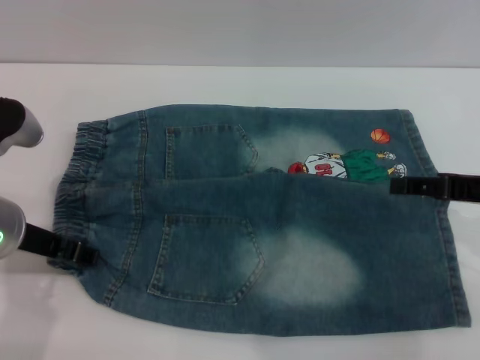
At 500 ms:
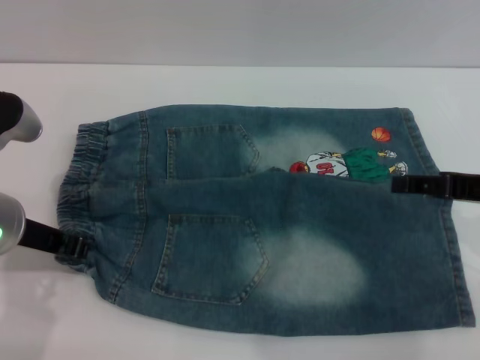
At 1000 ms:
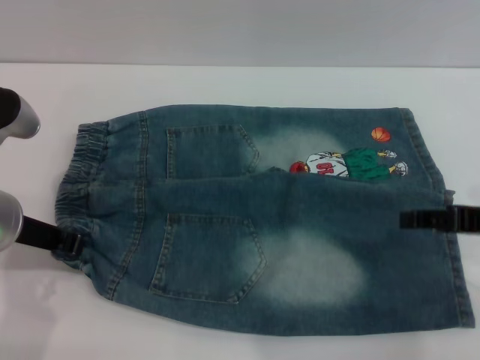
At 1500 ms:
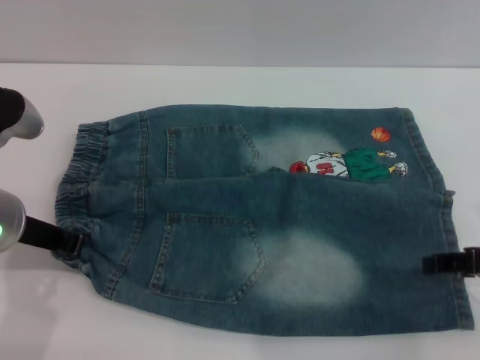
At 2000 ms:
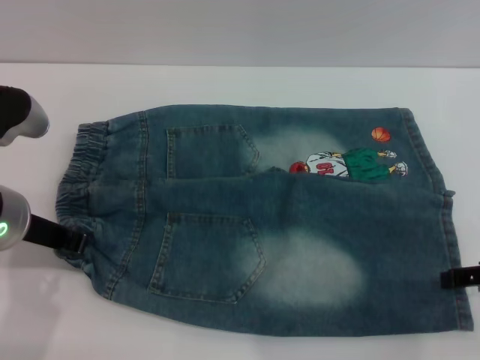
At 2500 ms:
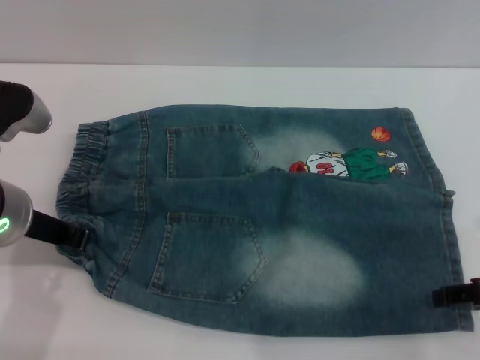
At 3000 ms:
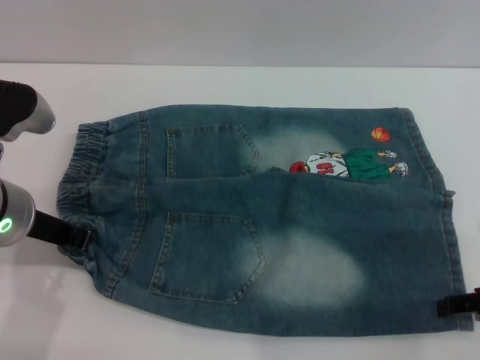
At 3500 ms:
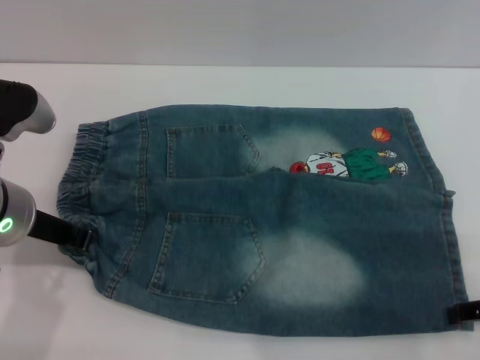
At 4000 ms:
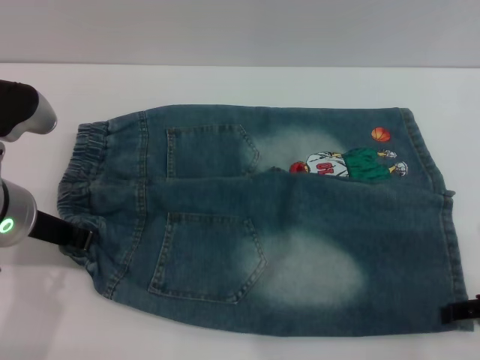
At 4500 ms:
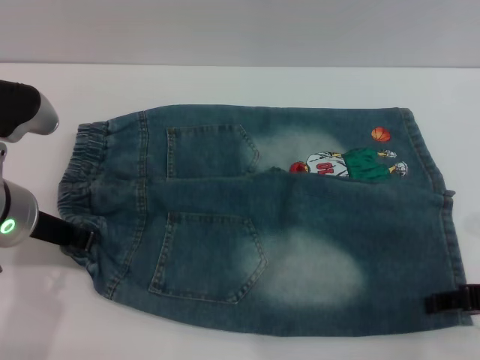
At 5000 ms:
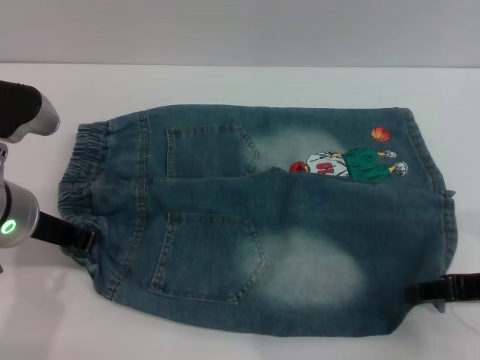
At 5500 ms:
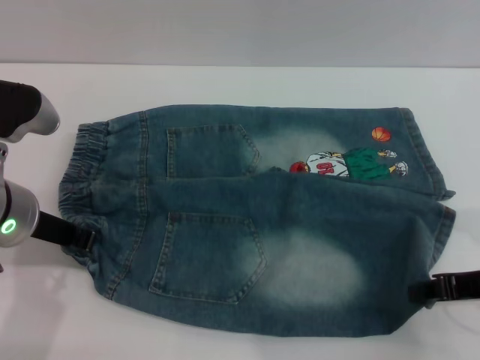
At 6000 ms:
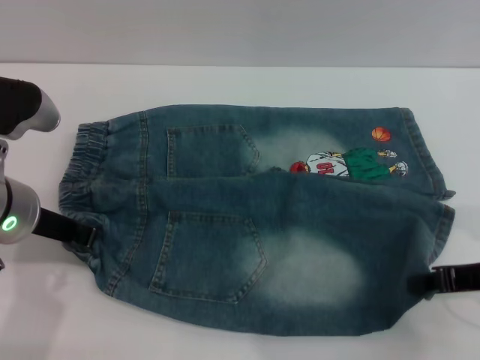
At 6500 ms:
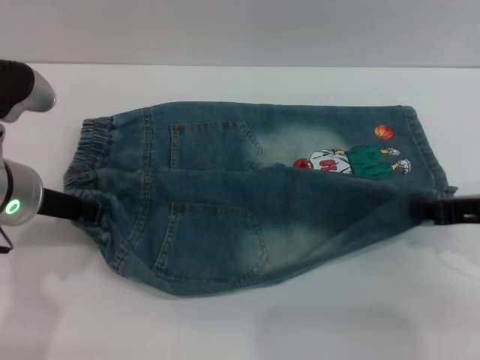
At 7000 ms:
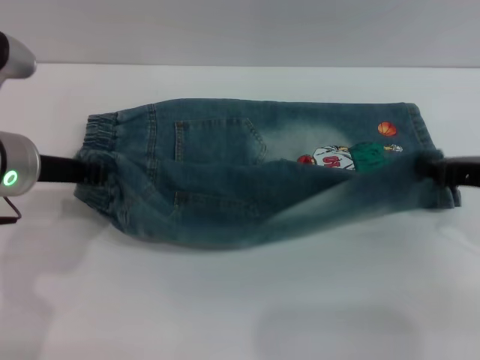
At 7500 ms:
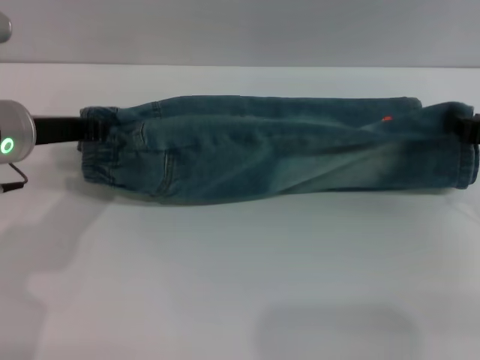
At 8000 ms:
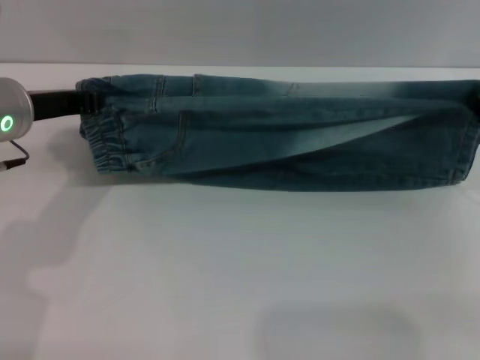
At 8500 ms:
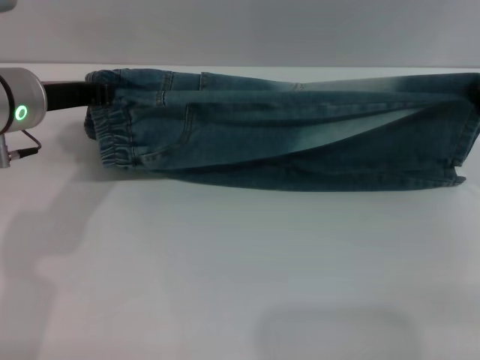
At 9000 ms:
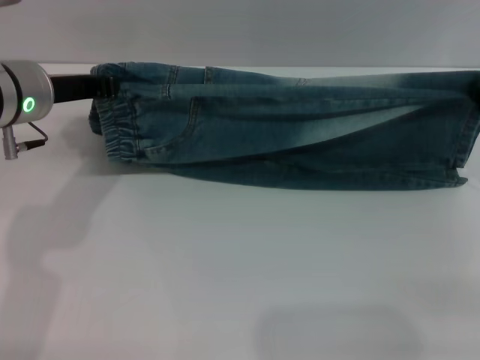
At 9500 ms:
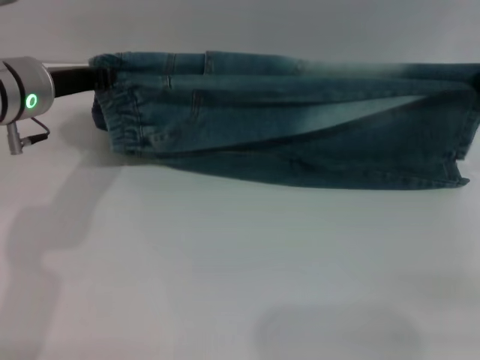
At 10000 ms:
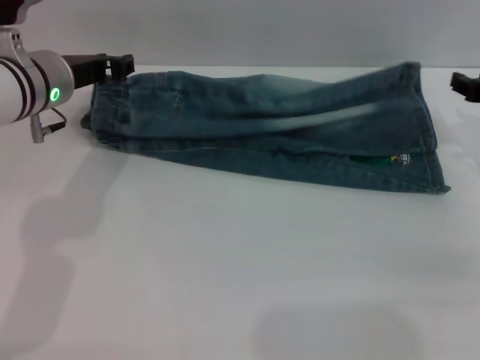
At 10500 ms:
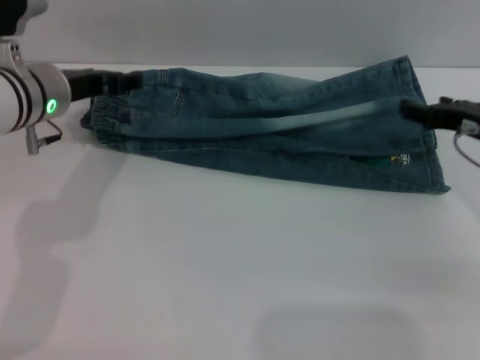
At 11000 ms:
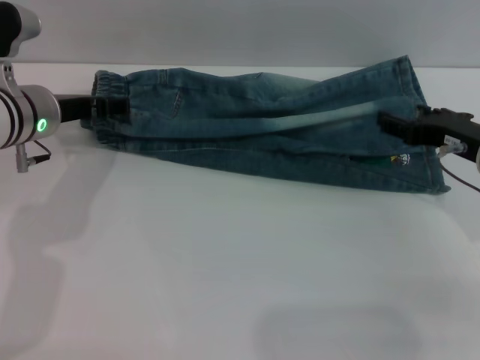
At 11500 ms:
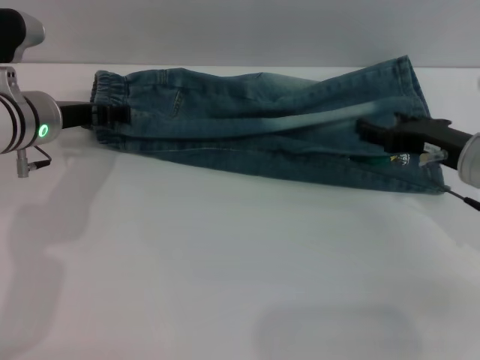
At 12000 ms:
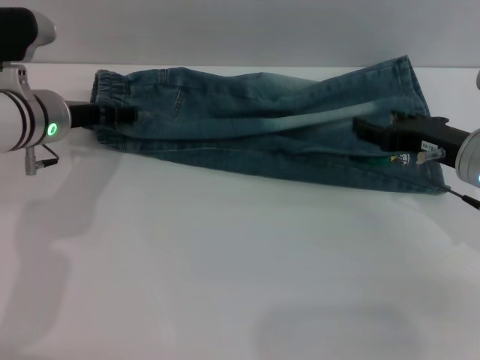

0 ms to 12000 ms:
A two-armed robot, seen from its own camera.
0 ms to 2000 ms: The left gripper closes up.
2000 ms to 4000 ms: The grippers move only a little.
4000 ms to 6000 ms: The right gripper closes.
6000 ms to 8000 ms: Both grippers move forward, some 5 cm.
8000 ms to 10000 ms: Both grippers travel together forward, about 5 cm.
10000 ms to 12000 ms: The left gripper opens. The right gripper goes roughly 5 cm to the left, and opens.

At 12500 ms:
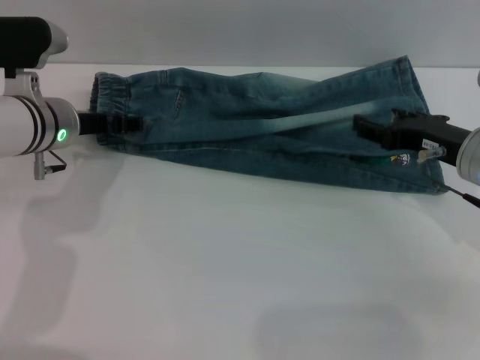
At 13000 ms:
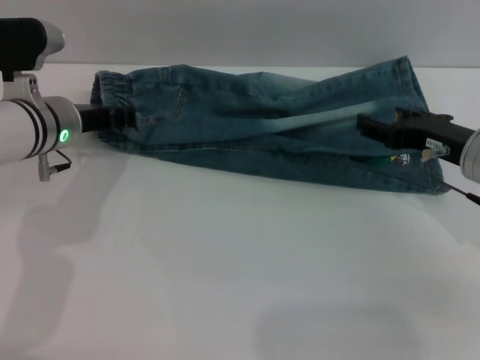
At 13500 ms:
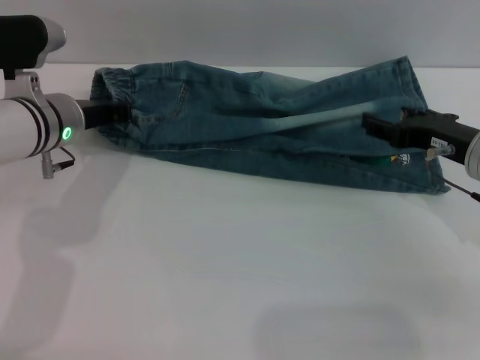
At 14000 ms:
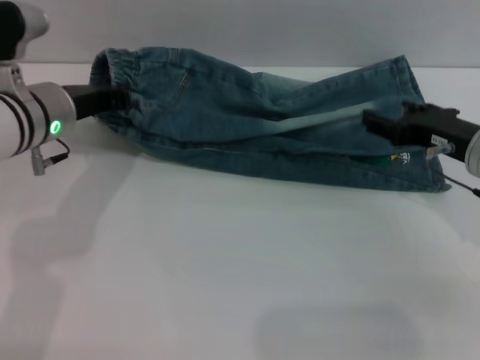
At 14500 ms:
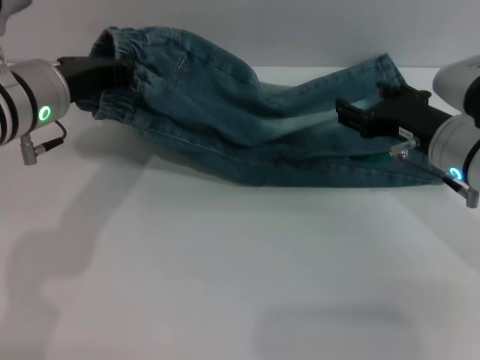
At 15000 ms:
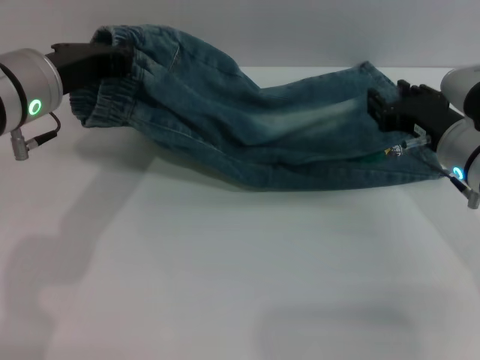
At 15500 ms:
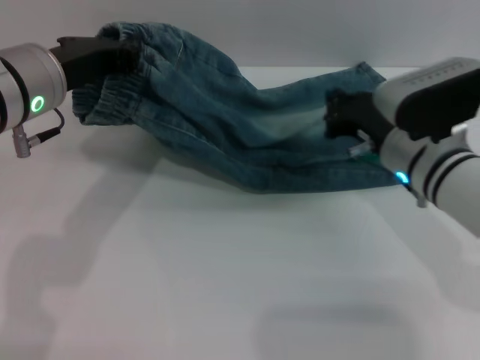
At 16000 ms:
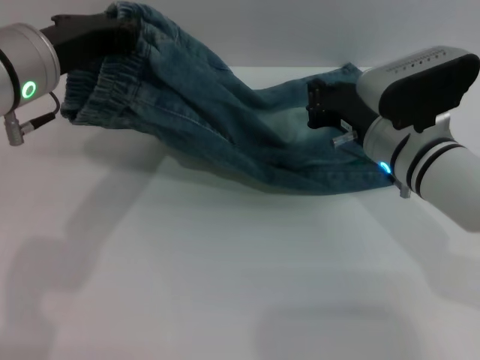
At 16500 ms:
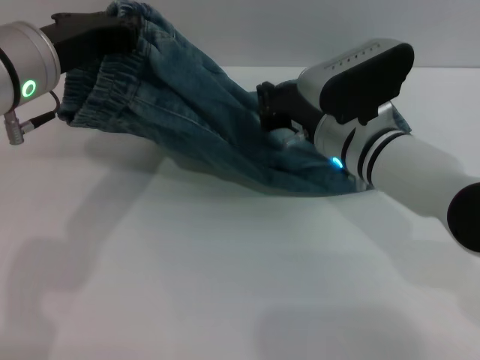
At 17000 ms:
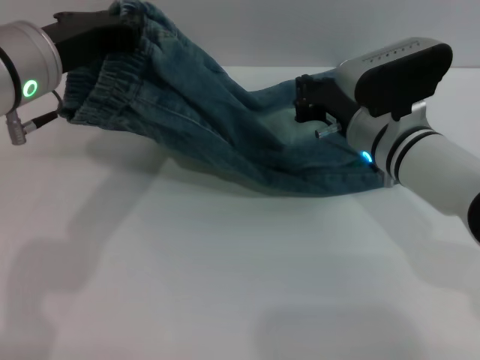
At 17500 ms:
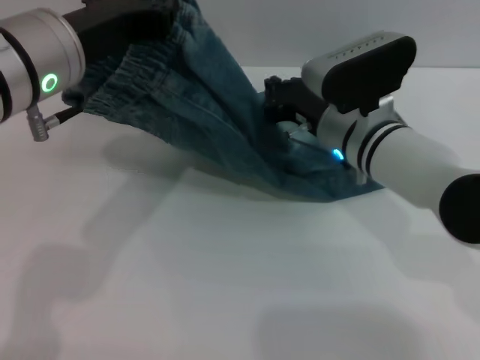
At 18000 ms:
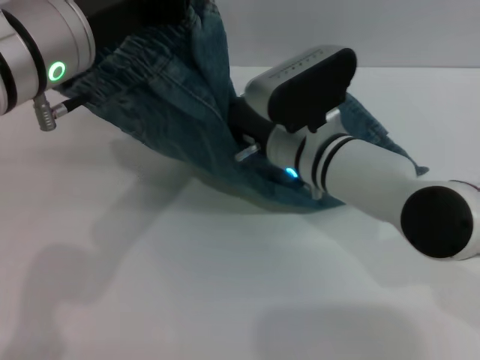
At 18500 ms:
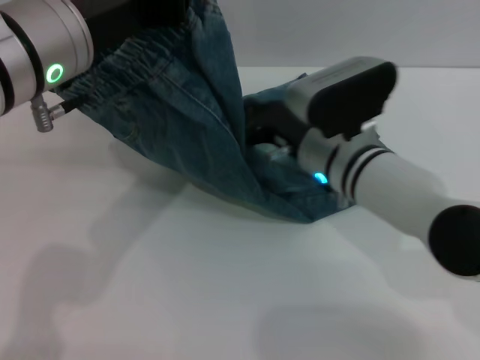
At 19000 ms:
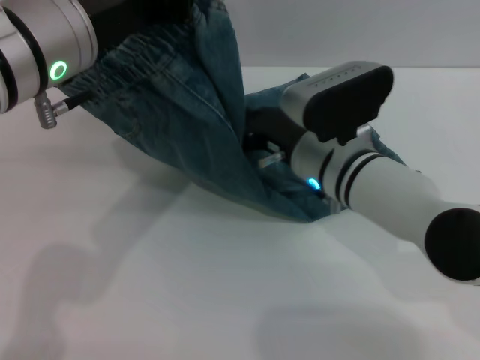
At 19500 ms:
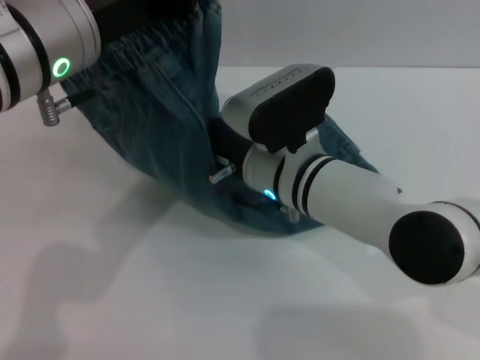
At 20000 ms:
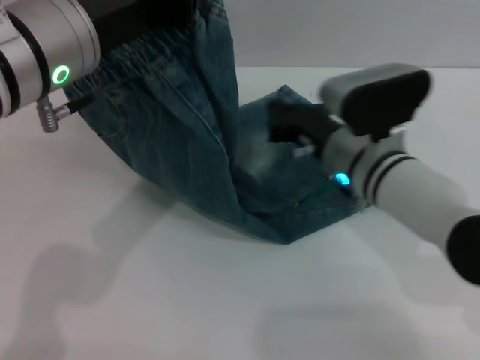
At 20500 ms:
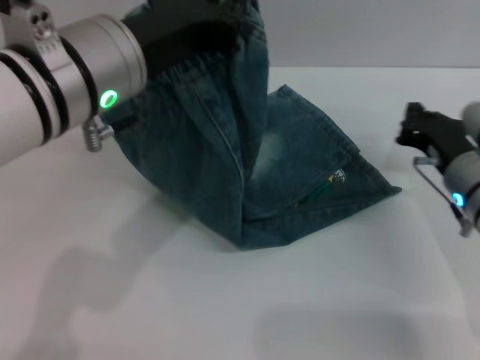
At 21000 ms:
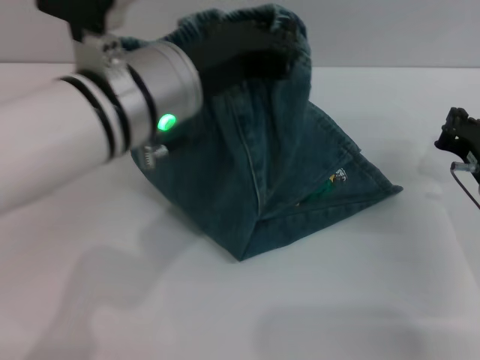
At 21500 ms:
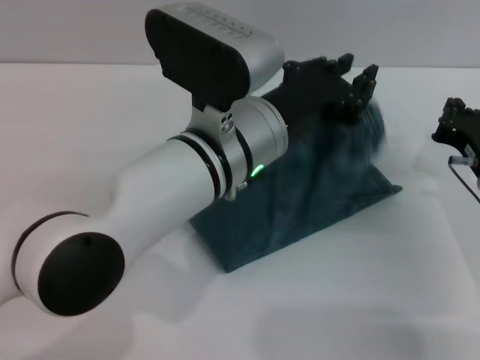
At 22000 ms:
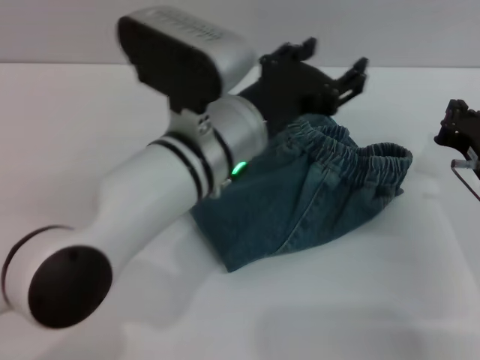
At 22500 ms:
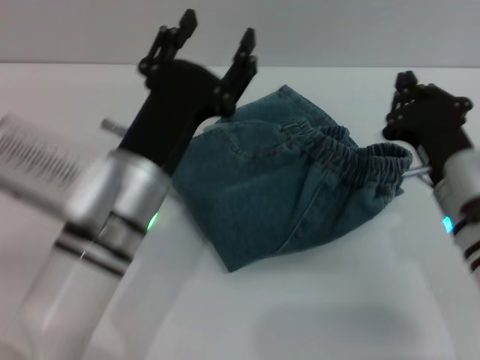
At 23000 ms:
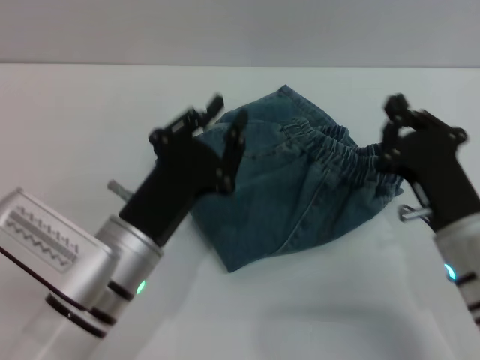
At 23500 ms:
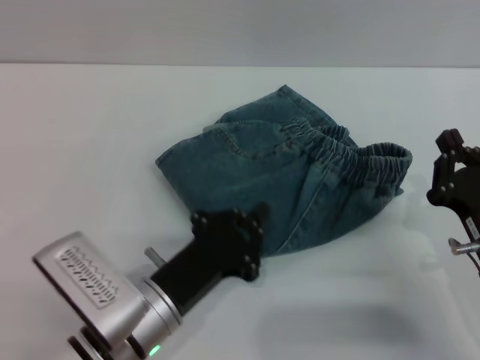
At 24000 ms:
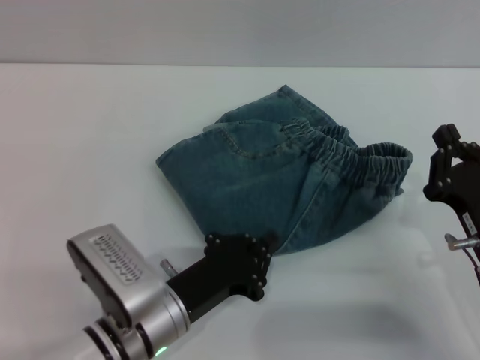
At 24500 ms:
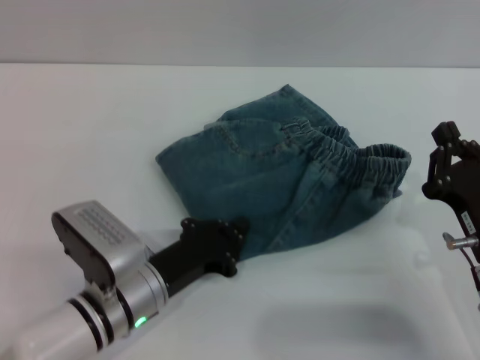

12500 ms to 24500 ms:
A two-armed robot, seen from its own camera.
Step, 13000 ms to 22500 ms: Fold the pants from left to right with the left gripper.
12500 ms to 14500 ms: The left gripper shifts about 10 cm upward and backward, and closes its fingers.
14500 ms to 16500 ms: The right gripper is displaced to the left by approximately 10 cm, and closes, while the left gripper changes place by roughly 5 cm.
16500 ms to 18500 ms: The left gripper changes place by some 5 cm.
18500 ms to 20500 ms: The right gripper heads to the right, covering approximately 15 cm.
20500 ms to 22500 ms: The left gripper shifts about 10 cm downward, and opens up, while the right gripper shifts by roughly 5 cm.
22500 ms to 24500 ms: The right gripper shifts approximately 5 cm backward. The left gripper is displaced downward by about 10 cm, and closes.

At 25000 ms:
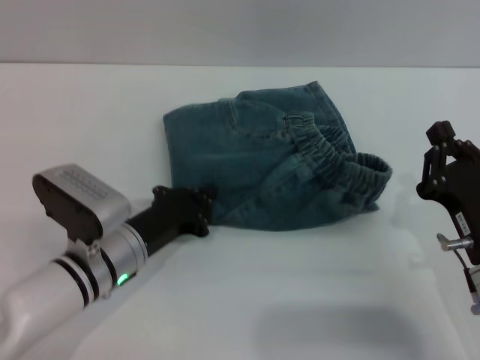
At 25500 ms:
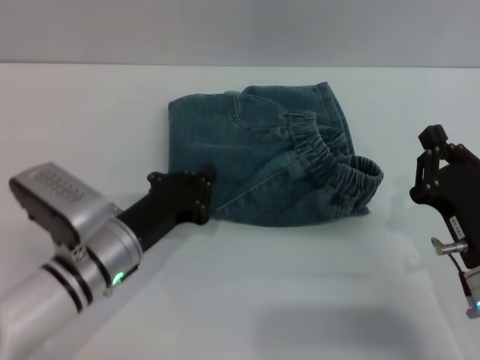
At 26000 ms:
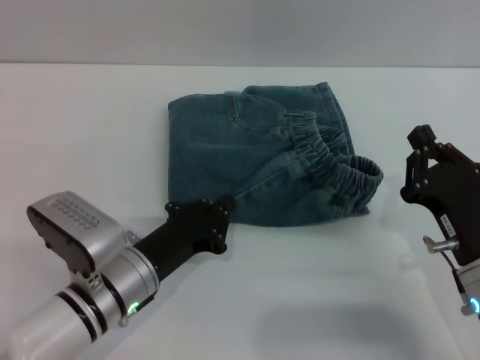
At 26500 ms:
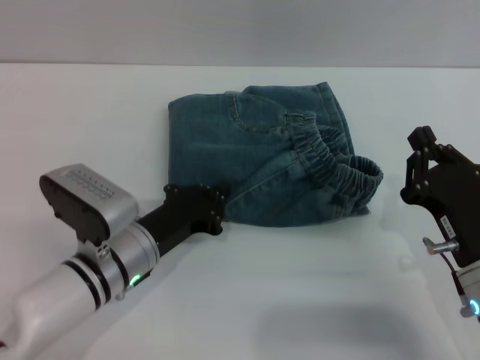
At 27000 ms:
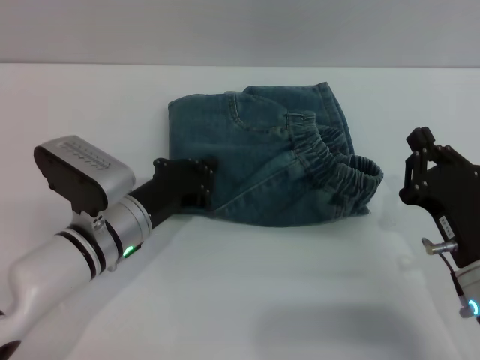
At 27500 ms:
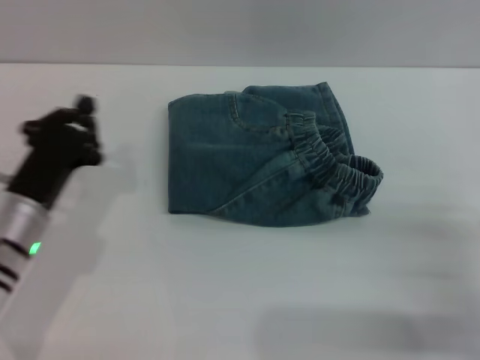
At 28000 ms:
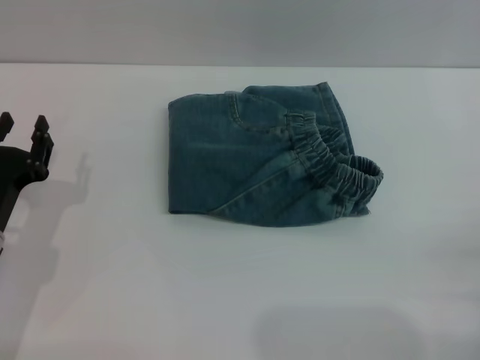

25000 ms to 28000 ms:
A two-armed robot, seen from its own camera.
Step, 25000 ms to 27000 ms: Place the folded trousers onto the center area with the left grippers.
25000 ms to 26500 ms: The grippers make only small movements.
26500 ms to 28000 ms: The left gripper moves to the left, some 10 cm, while the right gripper is displaced to the right by some 10 cm.
